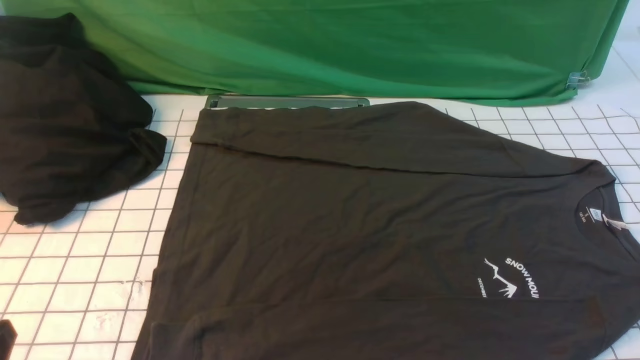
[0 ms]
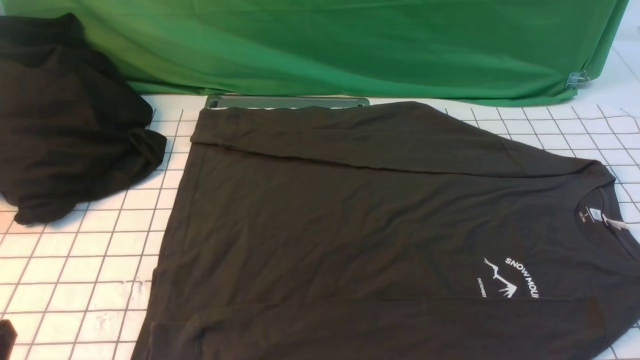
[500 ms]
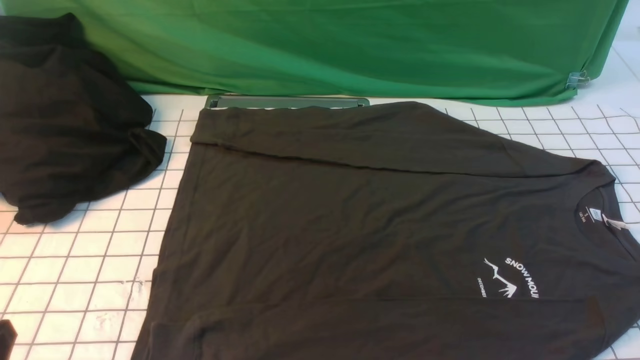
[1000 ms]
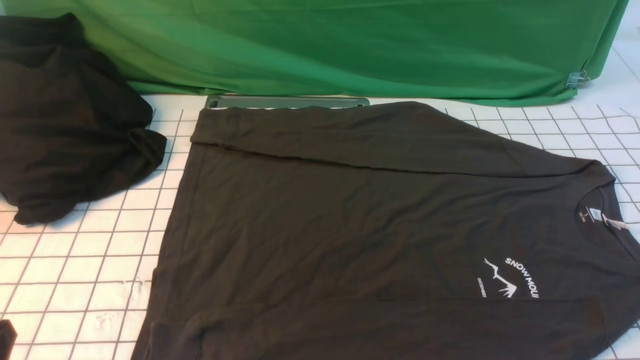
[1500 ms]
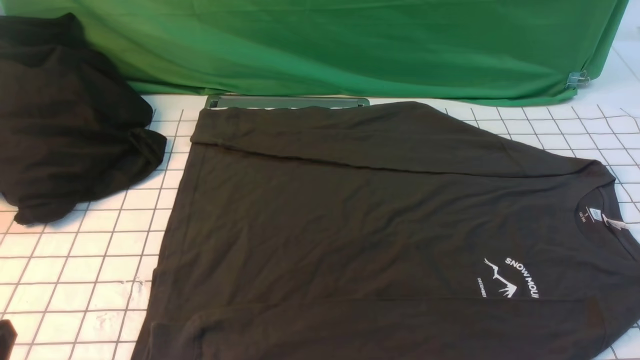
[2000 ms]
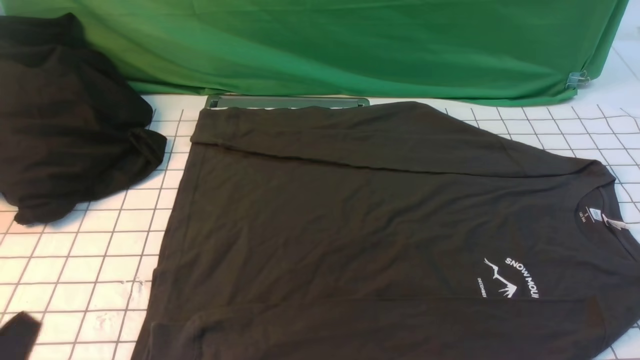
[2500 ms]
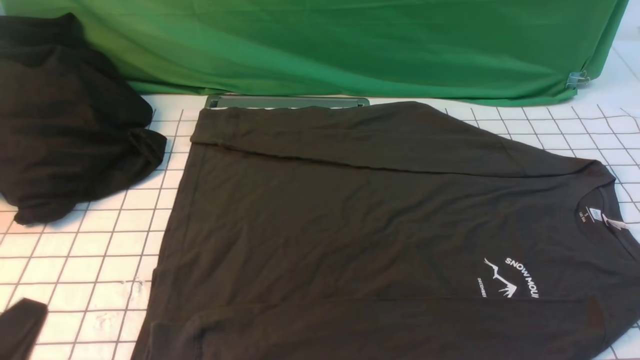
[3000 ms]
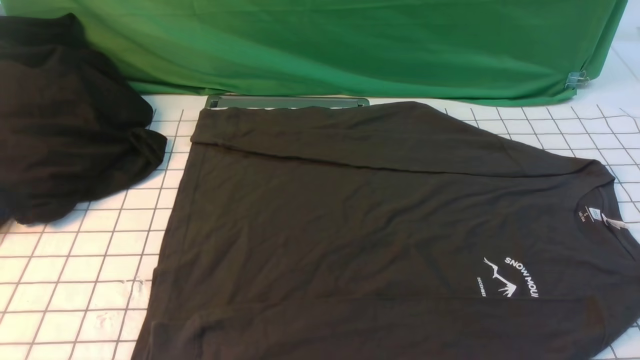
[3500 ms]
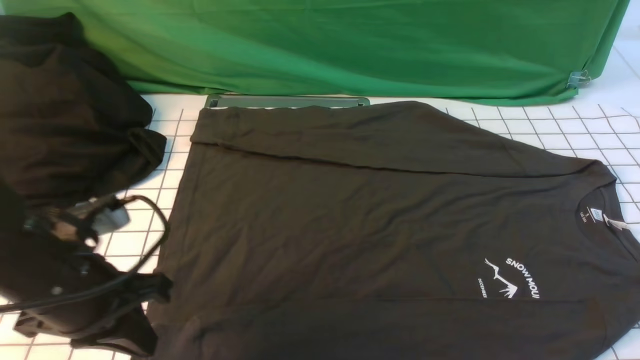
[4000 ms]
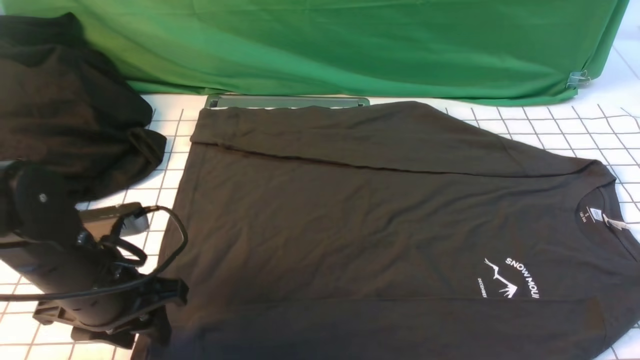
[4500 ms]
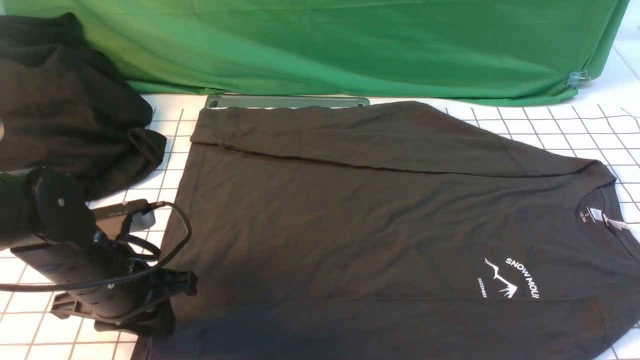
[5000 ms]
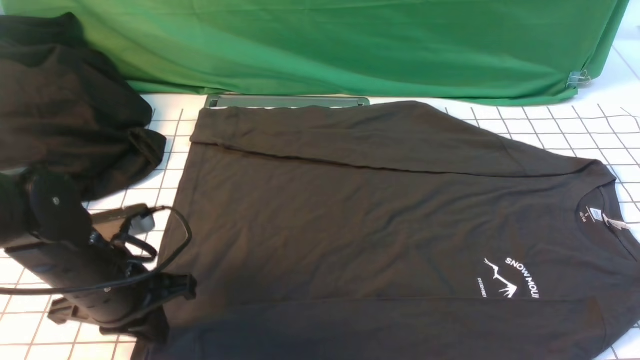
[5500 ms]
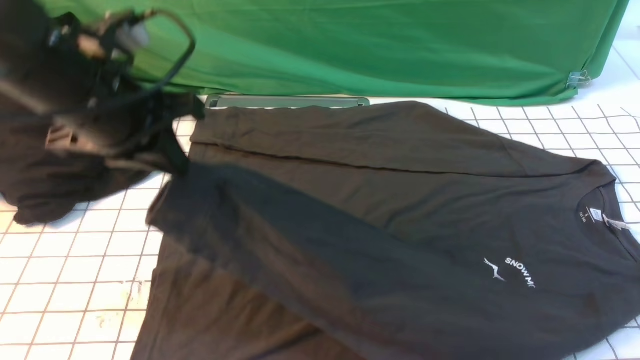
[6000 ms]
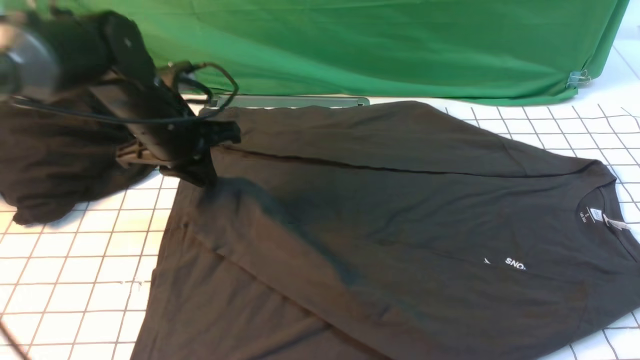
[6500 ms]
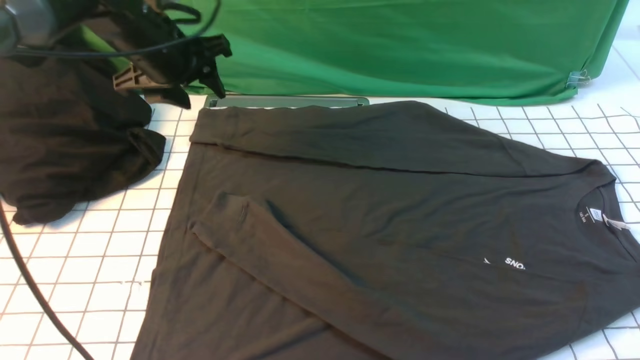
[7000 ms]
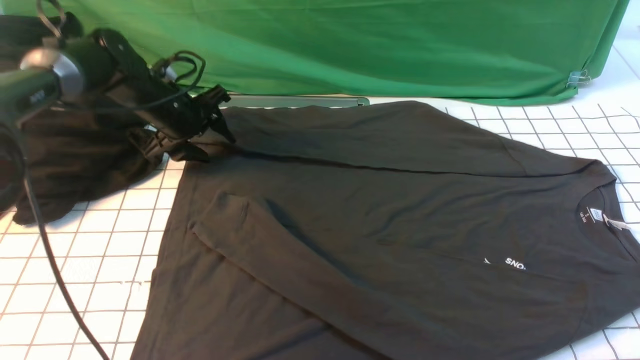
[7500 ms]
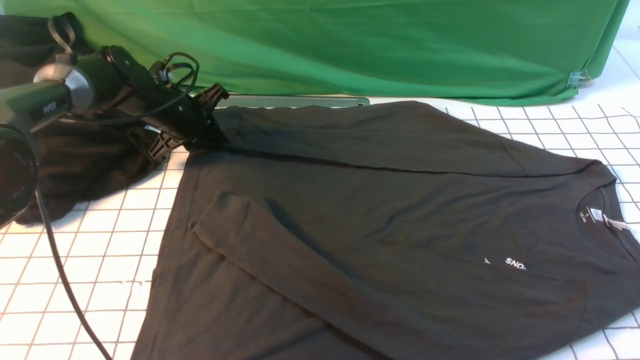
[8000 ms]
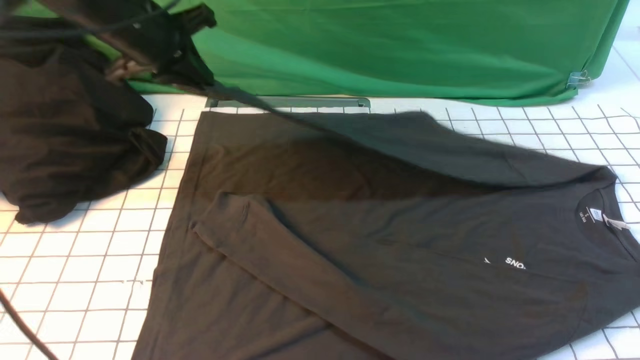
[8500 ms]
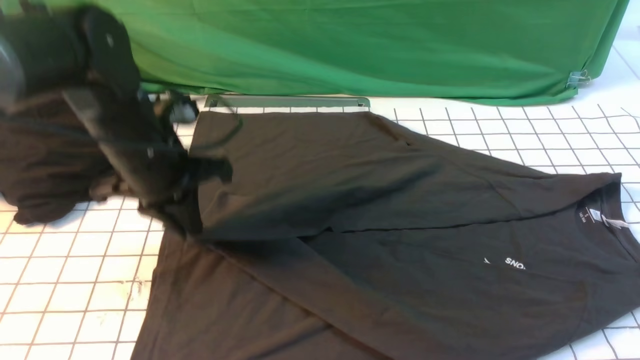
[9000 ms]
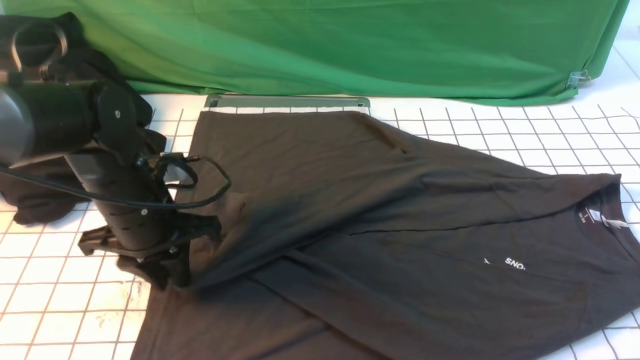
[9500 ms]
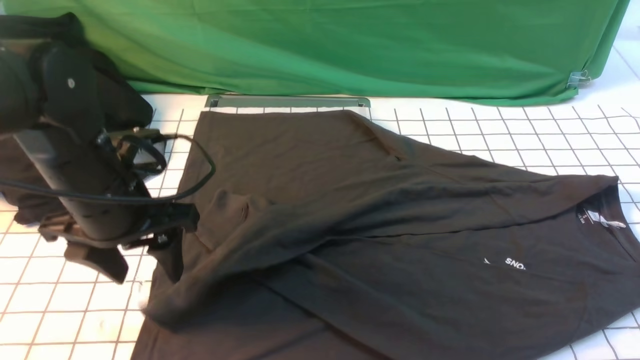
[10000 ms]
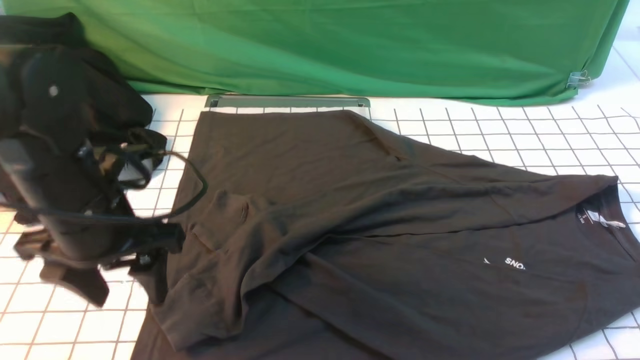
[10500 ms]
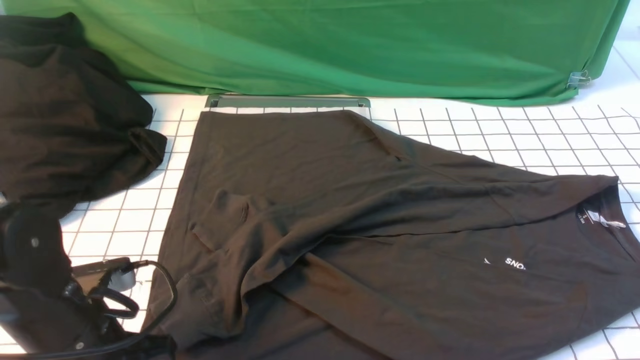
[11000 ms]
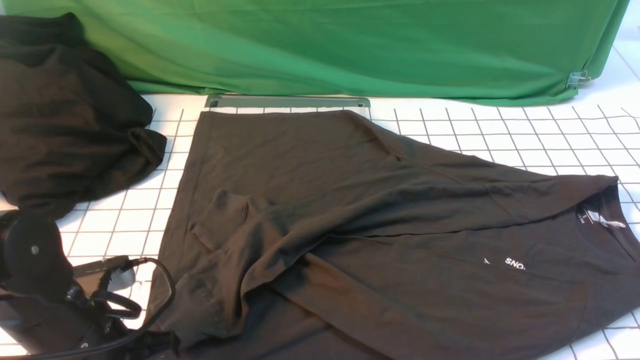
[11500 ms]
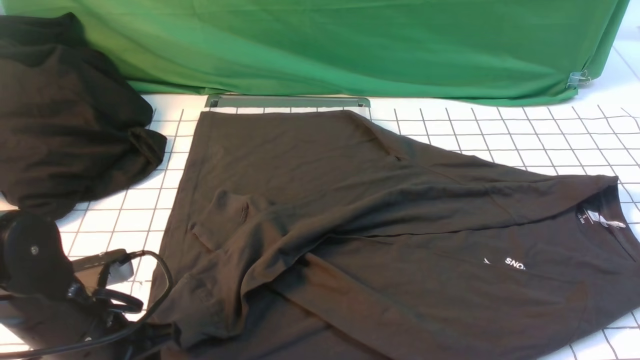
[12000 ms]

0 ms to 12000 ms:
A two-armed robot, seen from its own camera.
Step, 0 ms to 5000 ms: use the left arm to clamp the cuff closest to it.
Step, 5500 ms to 6500 ms: use the left arm to drag and place the cuff at the centered position on the left edge of the fabric.
Step, 7000 ms to 8000 ms: use the left arm to clamp the cuff farthest from it.
Step, 8500 ms to 10000 ms: use the left arm to drag and drop the cuff onto the cuff closest to the left arm.
0 ms to 2000 ms: Both grippers stay put.
2000 ms to 4000 ms: The left gripper goes about 15 cm forward.
4000 ms to 6000 ms: The left gripper goes roughly 15 cm forward and upward, and opens, then closes again.
6000 ms to 8000 ms: The left gripper moves forward and downward, some 25 cm, and opens, then closes again.
8000 ms to 10000 ms: The left gripper shifts some 20 cm backward, and opens up.
10000 ms to 12000 ms: The left gripper heads backward and downward, covering approximately 10 cm.

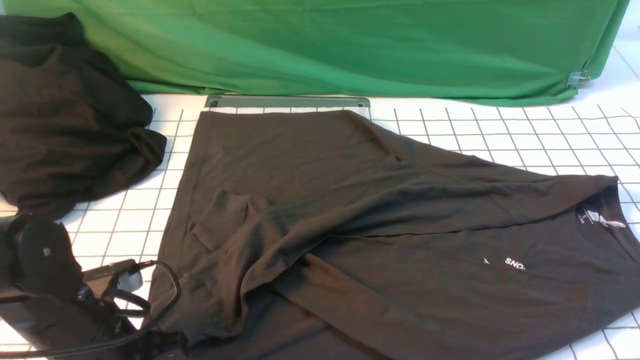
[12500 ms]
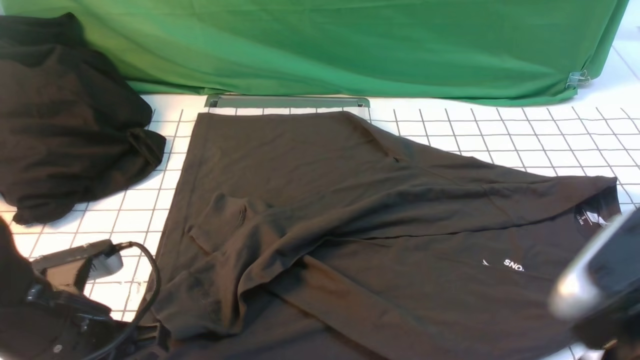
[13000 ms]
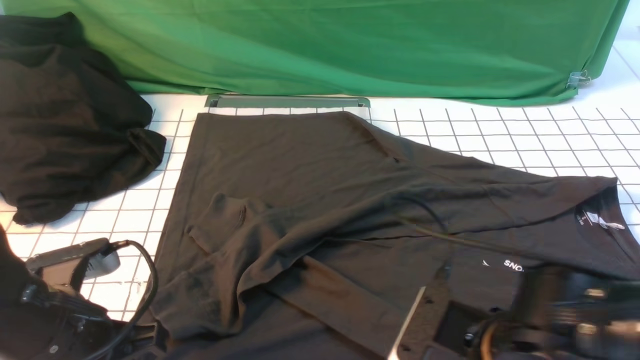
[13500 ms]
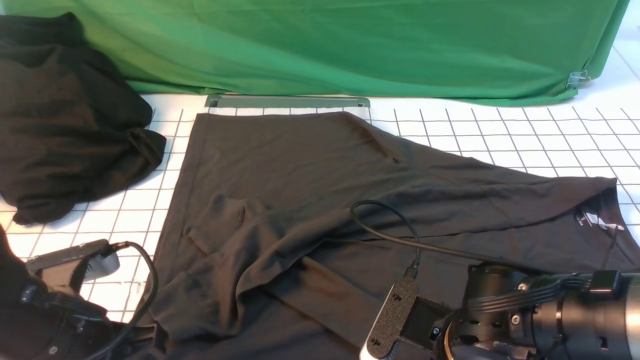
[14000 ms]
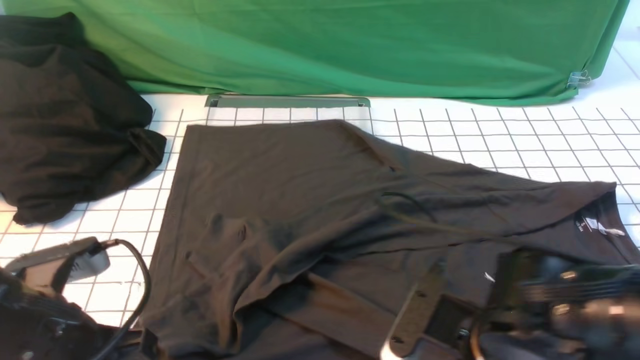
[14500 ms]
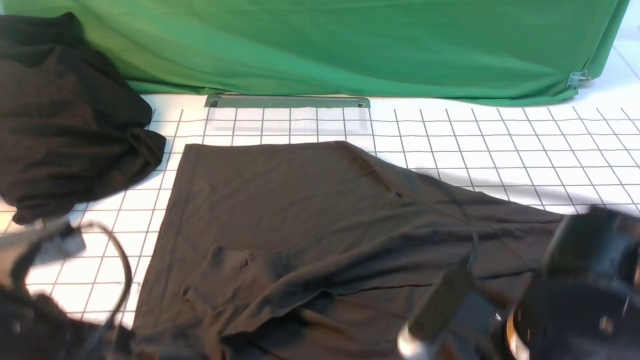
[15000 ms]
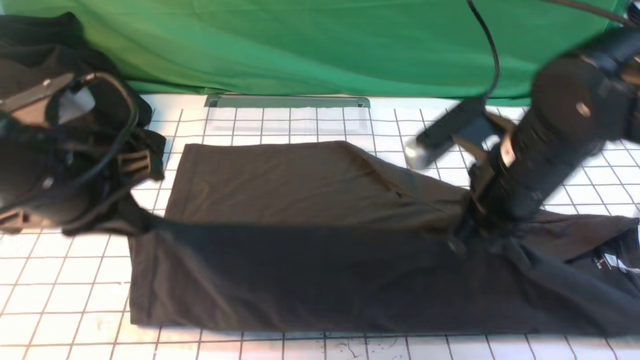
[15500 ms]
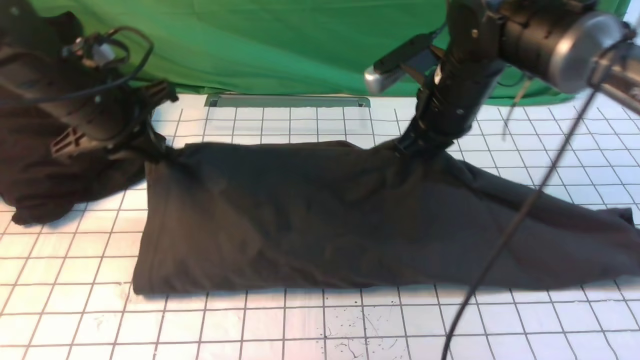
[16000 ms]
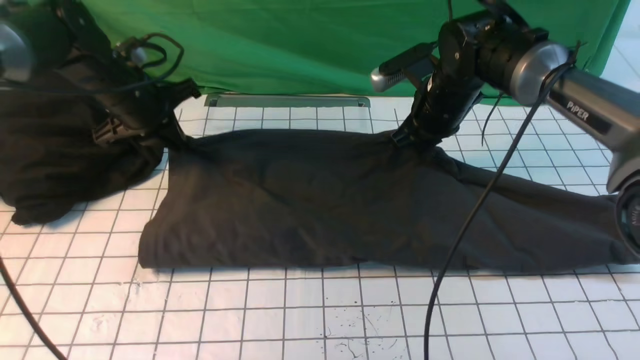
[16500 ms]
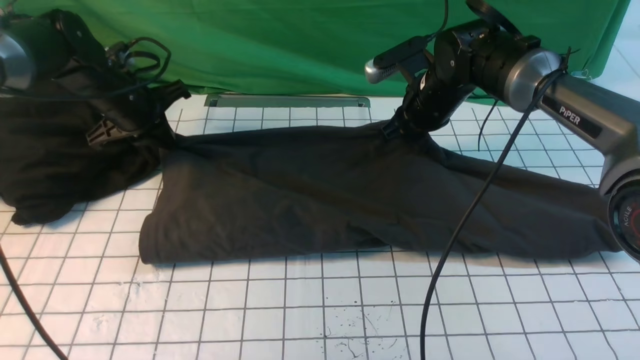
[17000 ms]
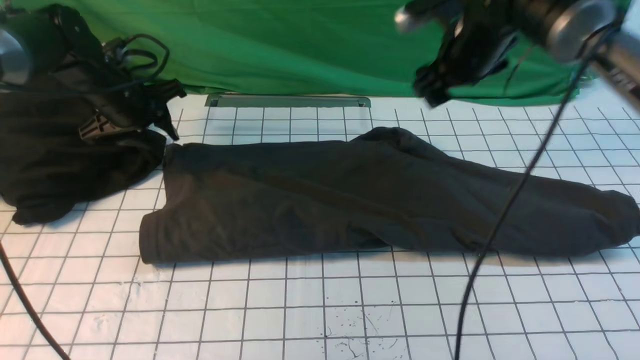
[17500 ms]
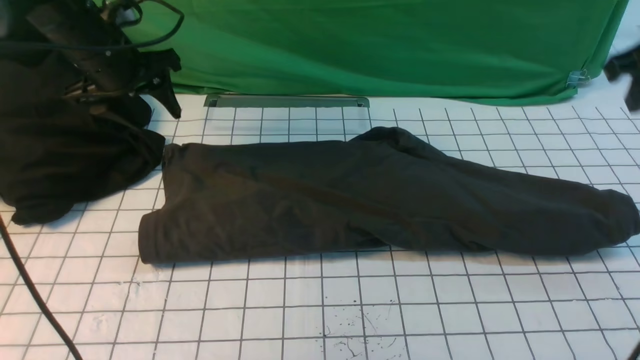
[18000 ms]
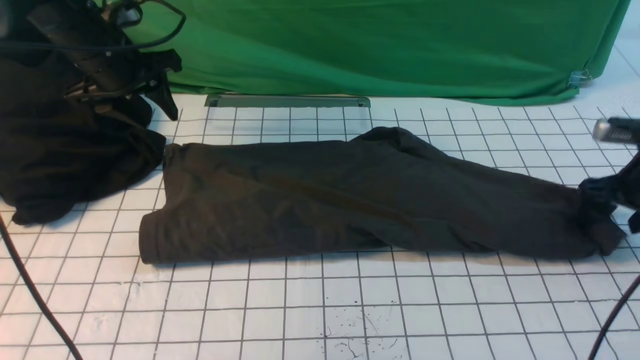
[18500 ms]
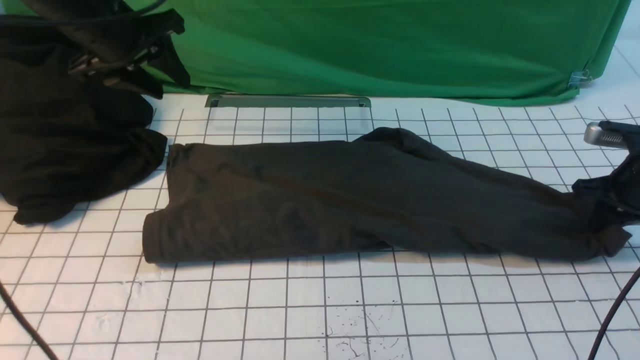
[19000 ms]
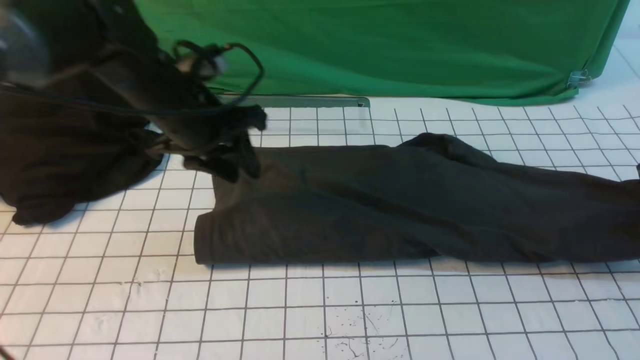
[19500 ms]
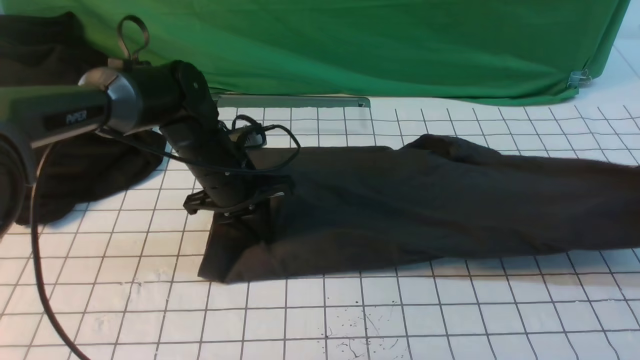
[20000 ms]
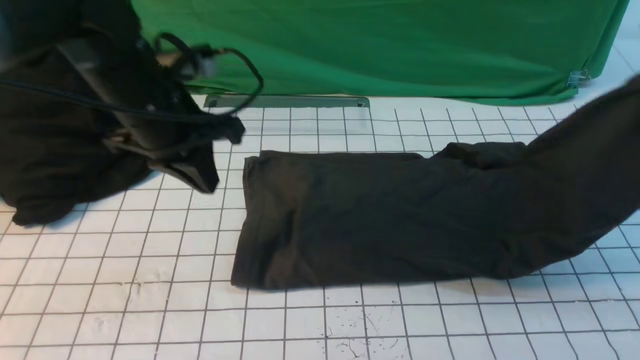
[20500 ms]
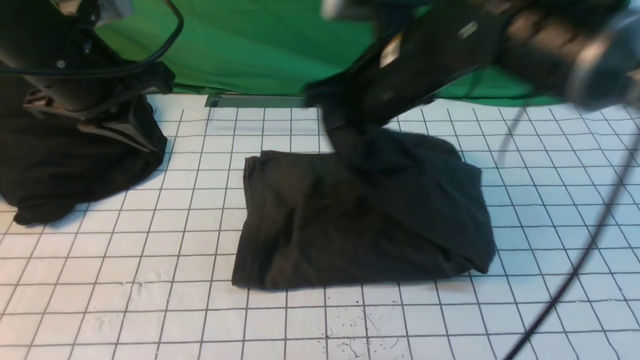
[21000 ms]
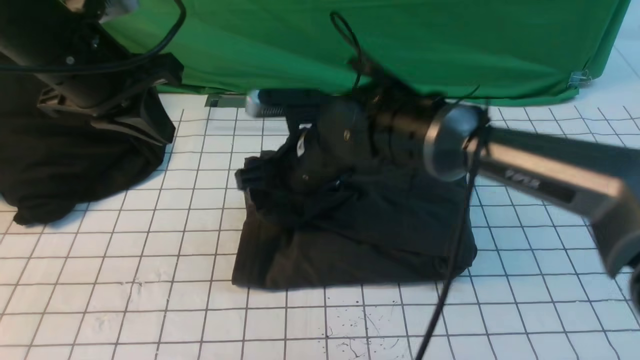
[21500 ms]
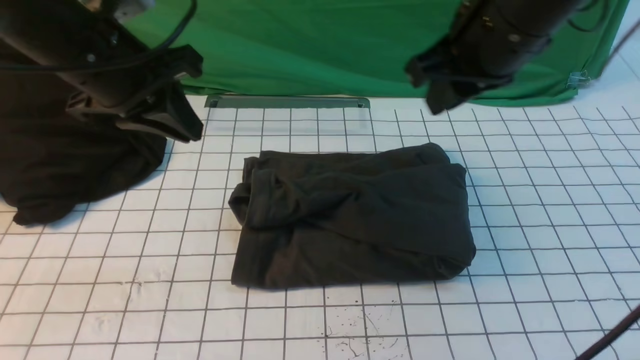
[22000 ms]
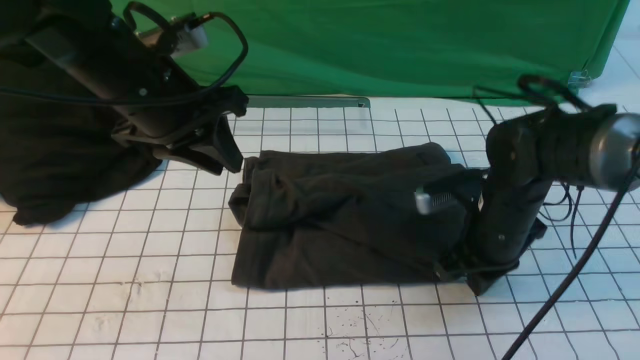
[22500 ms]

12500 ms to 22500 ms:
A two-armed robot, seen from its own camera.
Step, 14500 ms to 17000 ms: use both arms to drag the lower edge of the fabric forward and fold it over the upper edge.
Step, 17500 ms to 18500 ms: use the right arm to clamp the right edge of the fabric.
Step, 19000 ms to 21500 ms: use the right arm to drag the right edge of the fabric to the left and folds it over the left edge.
12500 ms to 14500 ms: The right gripper heads to the left and downward, covering about 20 cm, and closes. Meanwhile the left gripper moves upward, about 5 cm.
14500 ms to 16500 ms: The two grippers go roughly 30 cm forward.
16500 ms to 18500 ms: The right gripper moves to the right, approximately 25 cm, and opens up; the left gripper moves upward, about 5 cm, and opens.
18500 ms to 20500 ms: The left gripper goes about 15 cm backward and to the right, and closes up. The right gripper shifts about 20 cm upward, and closes.
20500 ms to 22500 ms: The right gripper shifts some 25 cm downward and to the left, and opens, then closes again. Meanwhile the left gripper opens up.
